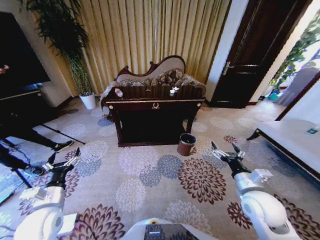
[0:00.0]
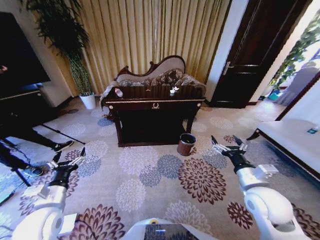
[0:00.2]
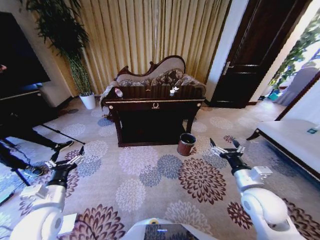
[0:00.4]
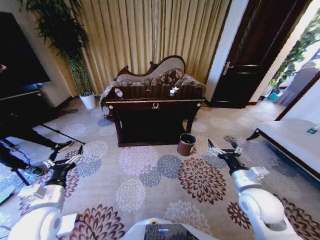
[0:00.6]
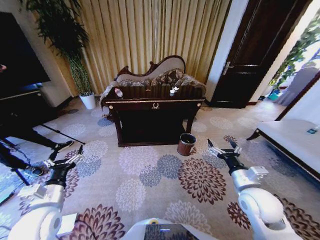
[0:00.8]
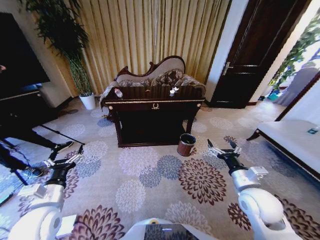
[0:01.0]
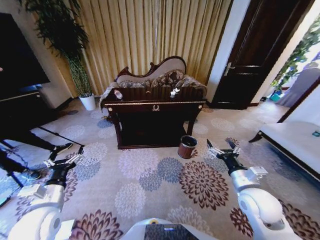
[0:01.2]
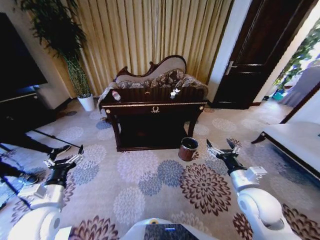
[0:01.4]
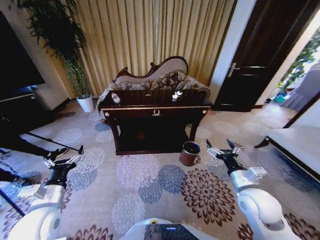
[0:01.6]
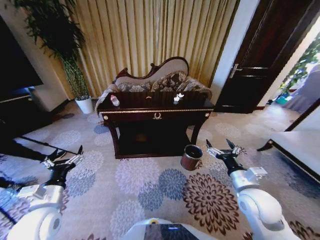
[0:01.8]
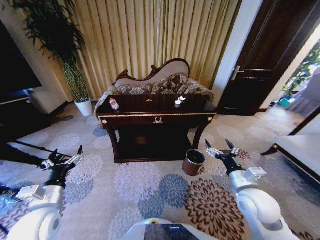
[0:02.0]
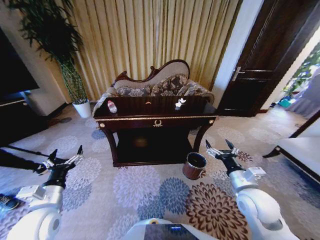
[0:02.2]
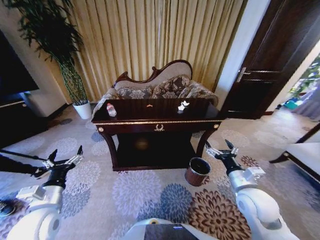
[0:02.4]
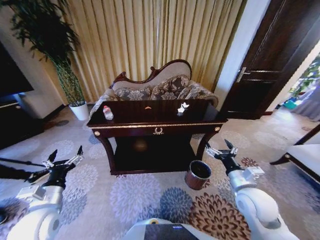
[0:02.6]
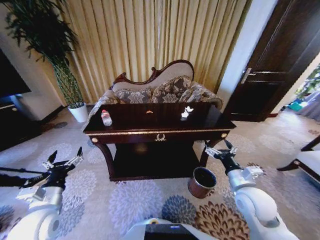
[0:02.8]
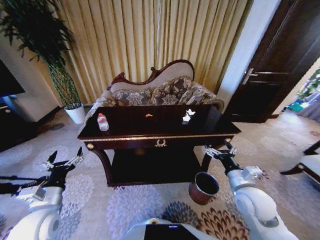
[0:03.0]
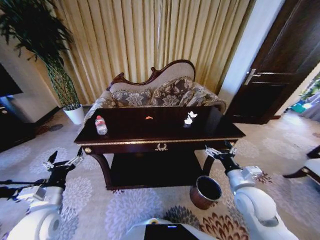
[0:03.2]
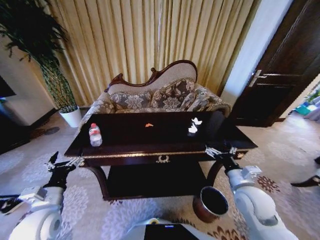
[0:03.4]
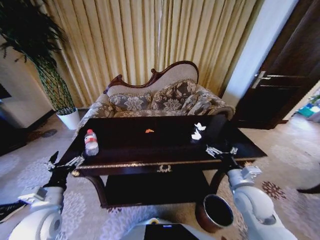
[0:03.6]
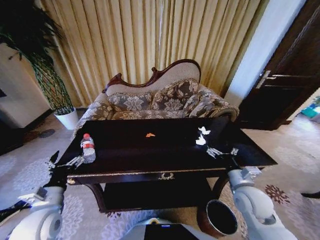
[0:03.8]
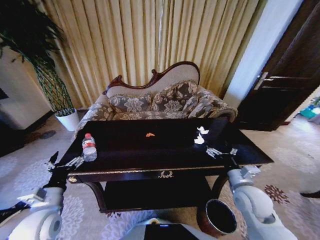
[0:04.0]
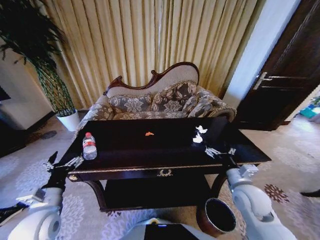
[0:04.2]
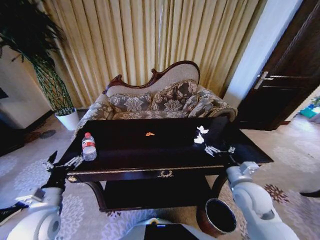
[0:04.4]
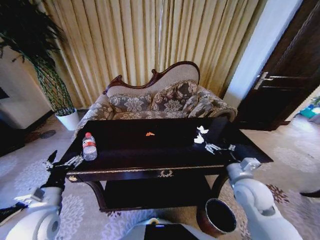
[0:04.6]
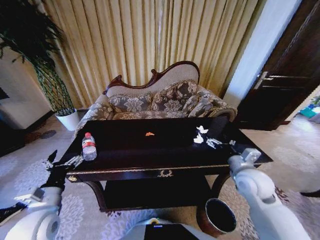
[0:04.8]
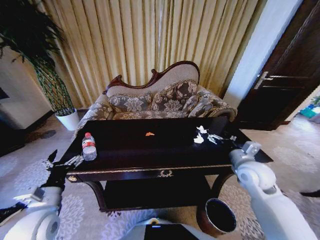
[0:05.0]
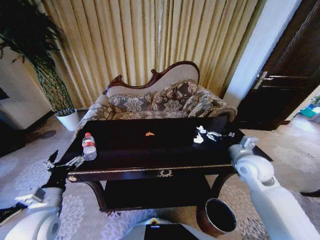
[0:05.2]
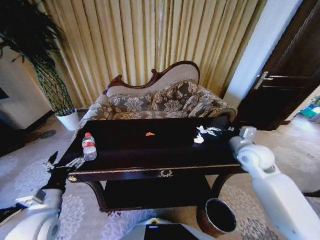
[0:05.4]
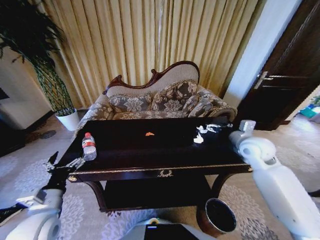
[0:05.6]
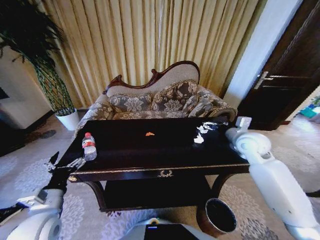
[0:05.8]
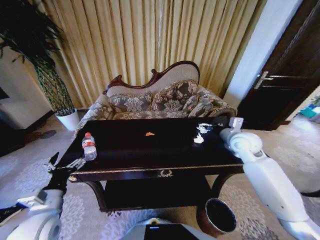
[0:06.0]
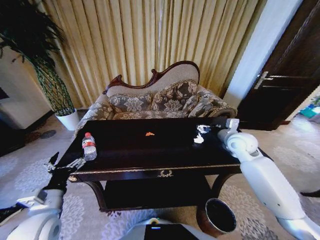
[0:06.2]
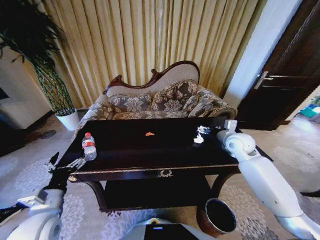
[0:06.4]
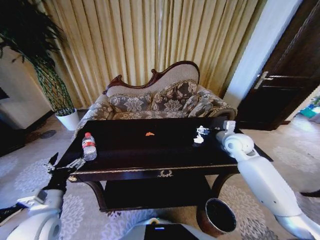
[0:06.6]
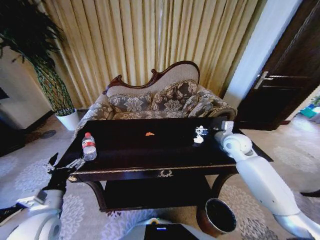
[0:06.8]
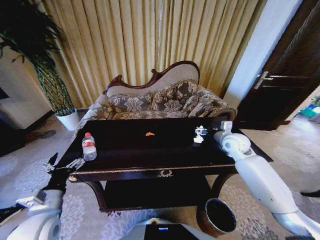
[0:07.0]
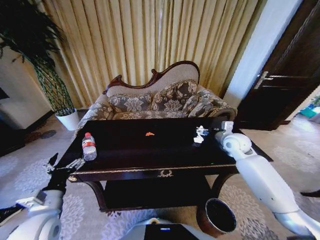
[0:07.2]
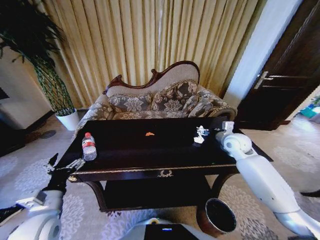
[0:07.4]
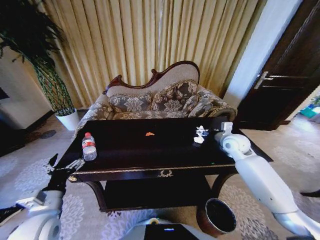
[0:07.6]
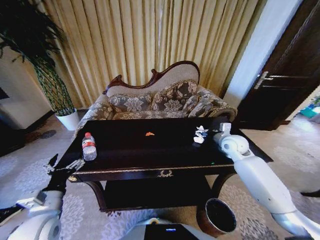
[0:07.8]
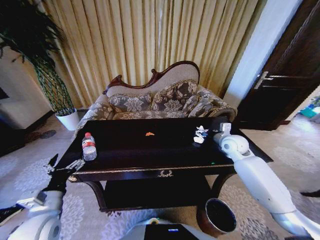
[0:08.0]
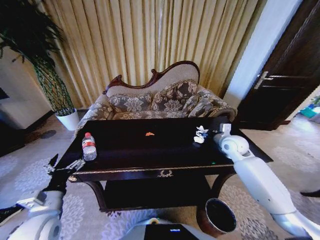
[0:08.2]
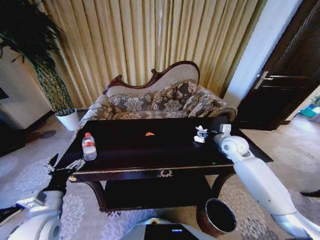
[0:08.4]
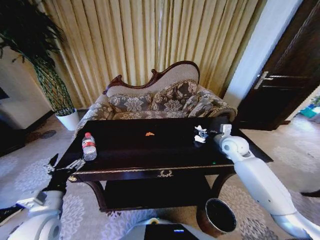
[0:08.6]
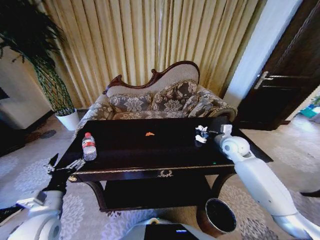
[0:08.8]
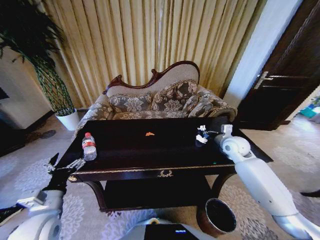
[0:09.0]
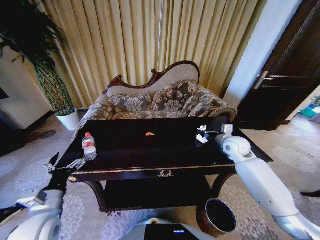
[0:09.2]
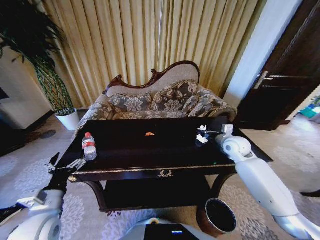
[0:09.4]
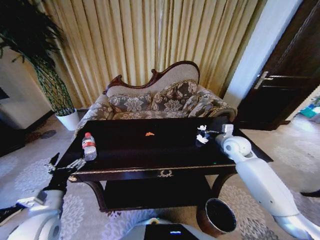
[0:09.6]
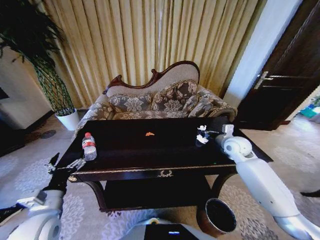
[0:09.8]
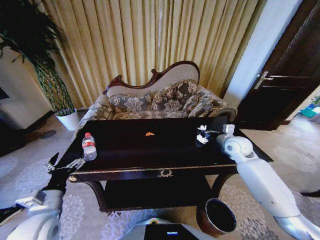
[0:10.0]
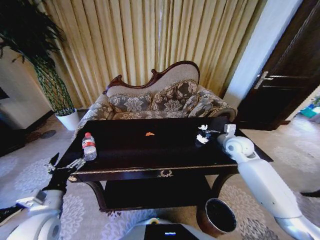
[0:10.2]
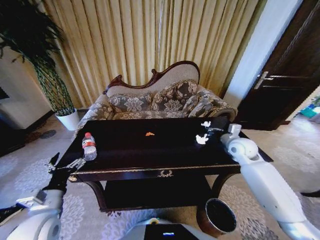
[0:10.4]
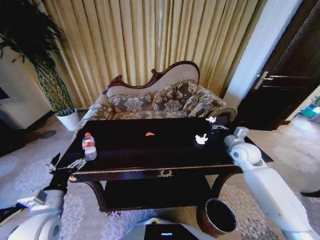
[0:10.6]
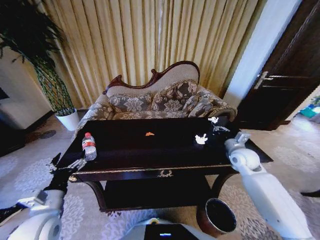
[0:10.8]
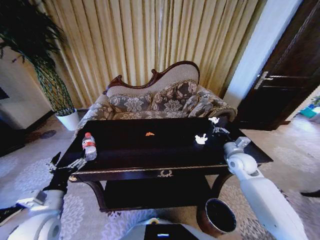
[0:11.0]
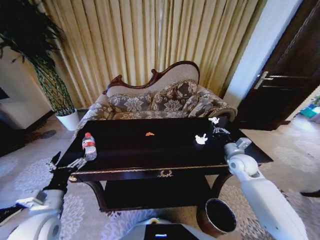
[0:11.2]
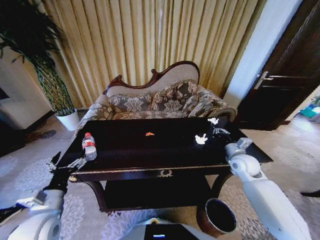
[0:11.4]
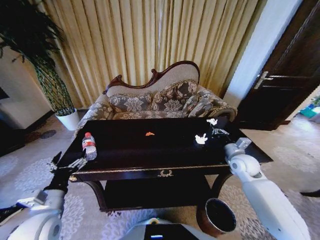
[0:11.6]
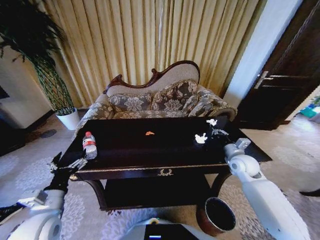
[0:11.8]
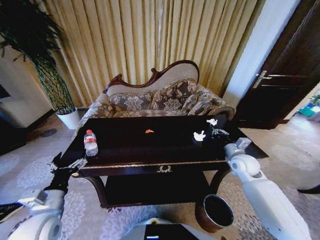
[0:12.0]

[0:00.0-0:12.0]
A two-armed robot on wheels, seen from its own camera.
Task of the whole recording: Move to the front of the table and place the trash on the table into the trash bin.
0:04.4 to 0:06.0: The right gripper goes about 20 cm forward and upward.
0:06.0 to 0:07.6: The grippers stay close to where they were, moving slightly.
0:07.6 to 0:09.0: The right gripper closes its fingers.
0:09.0 to 0:10.4: There are only small adjustments of the grippers.
0:10.4 to 0:12.0: The right gripper is displaced backward and downward by about 10 cm.

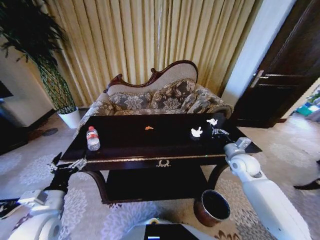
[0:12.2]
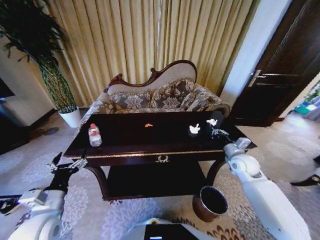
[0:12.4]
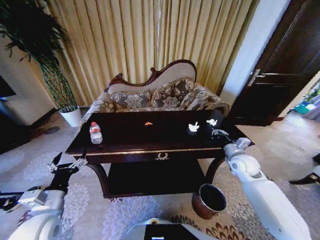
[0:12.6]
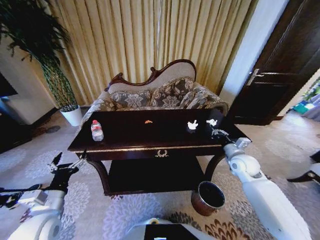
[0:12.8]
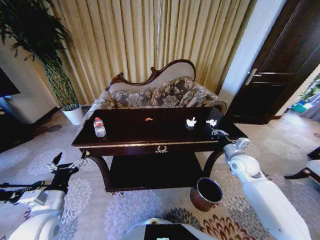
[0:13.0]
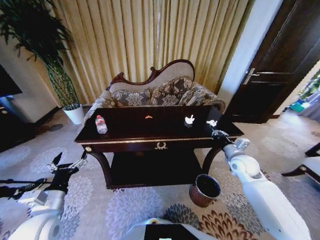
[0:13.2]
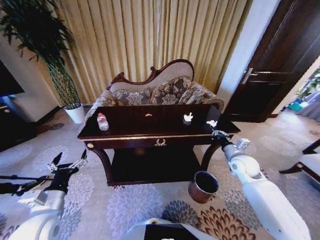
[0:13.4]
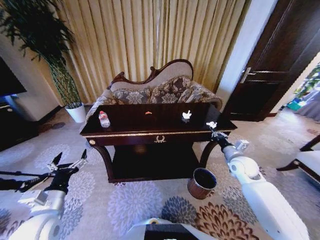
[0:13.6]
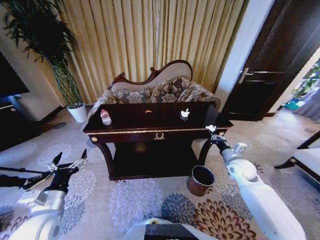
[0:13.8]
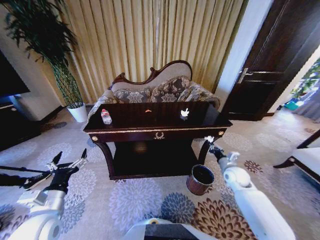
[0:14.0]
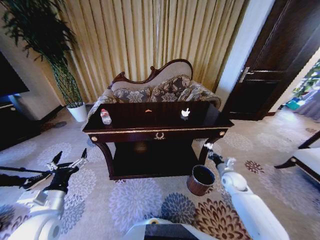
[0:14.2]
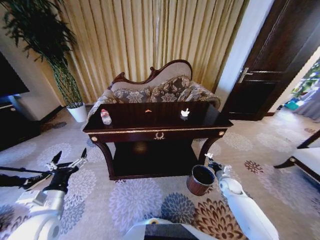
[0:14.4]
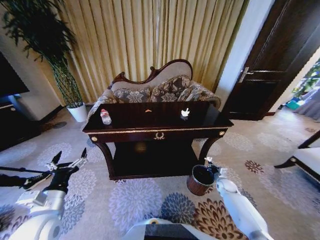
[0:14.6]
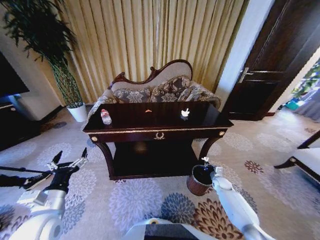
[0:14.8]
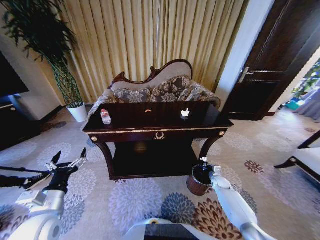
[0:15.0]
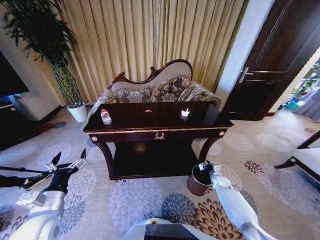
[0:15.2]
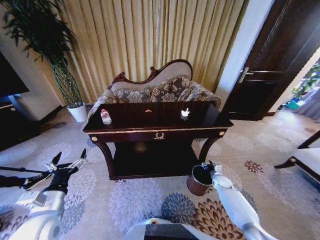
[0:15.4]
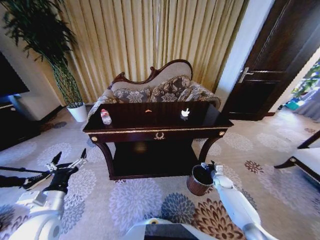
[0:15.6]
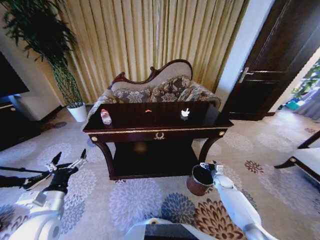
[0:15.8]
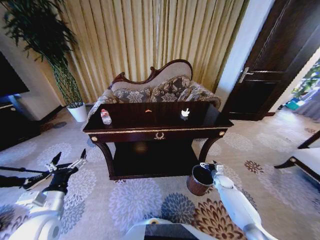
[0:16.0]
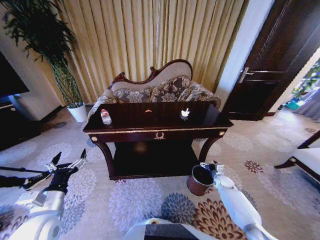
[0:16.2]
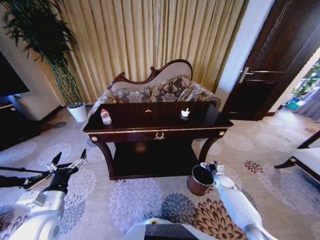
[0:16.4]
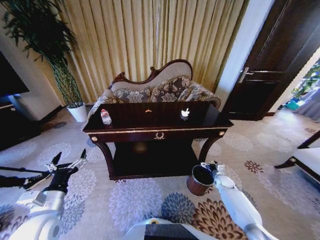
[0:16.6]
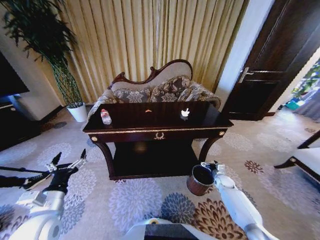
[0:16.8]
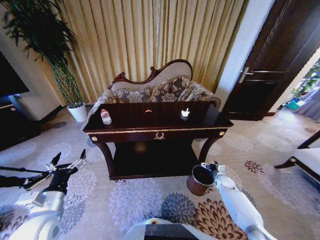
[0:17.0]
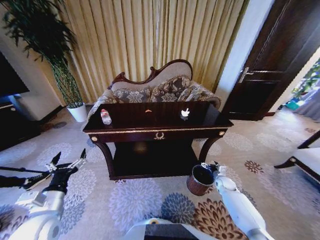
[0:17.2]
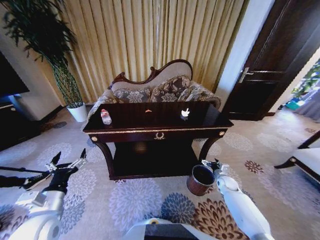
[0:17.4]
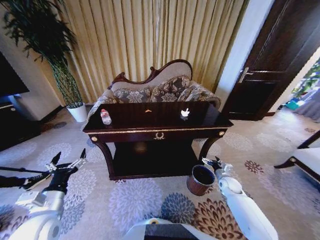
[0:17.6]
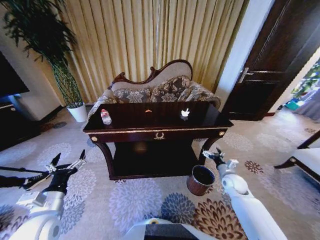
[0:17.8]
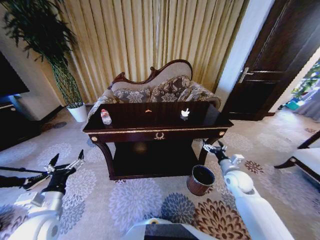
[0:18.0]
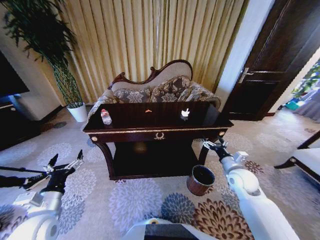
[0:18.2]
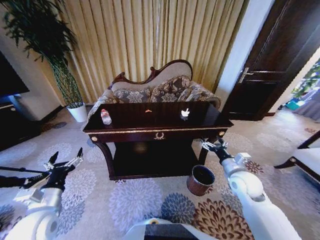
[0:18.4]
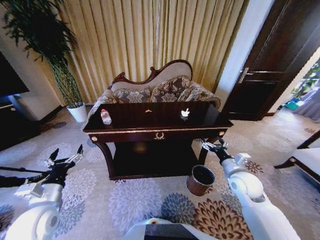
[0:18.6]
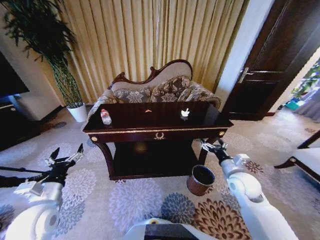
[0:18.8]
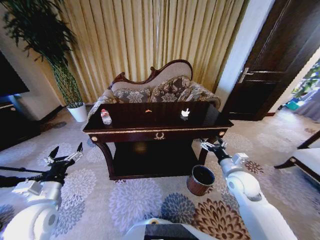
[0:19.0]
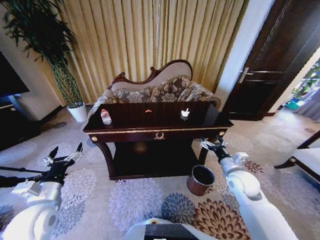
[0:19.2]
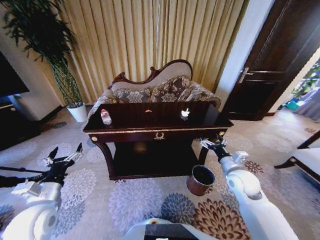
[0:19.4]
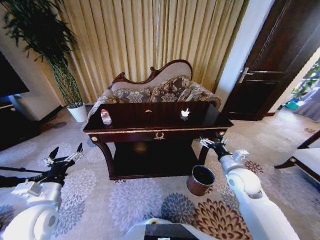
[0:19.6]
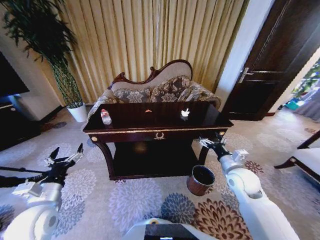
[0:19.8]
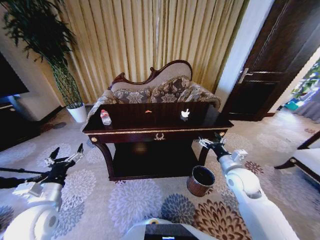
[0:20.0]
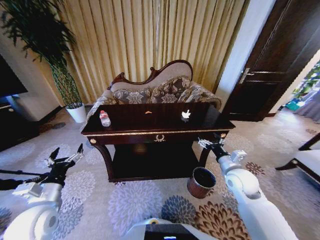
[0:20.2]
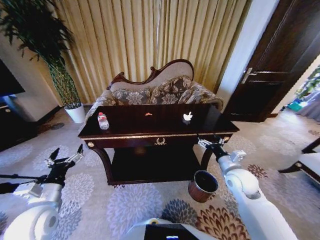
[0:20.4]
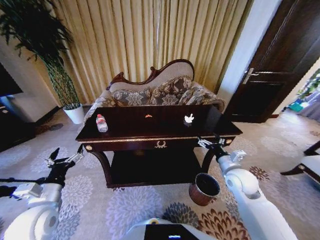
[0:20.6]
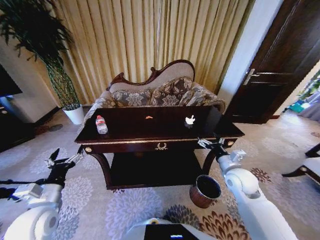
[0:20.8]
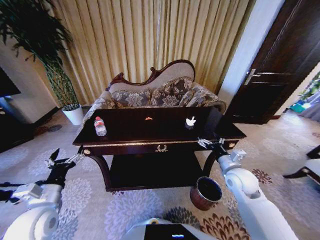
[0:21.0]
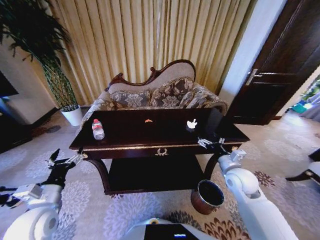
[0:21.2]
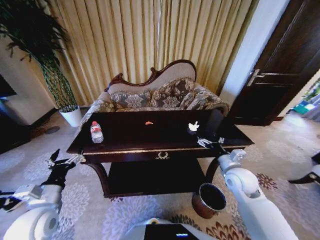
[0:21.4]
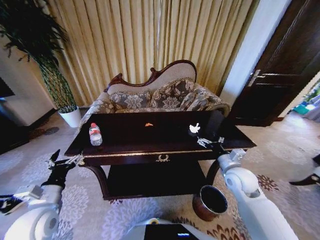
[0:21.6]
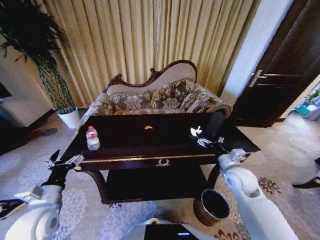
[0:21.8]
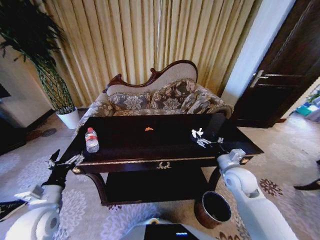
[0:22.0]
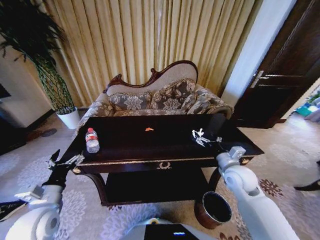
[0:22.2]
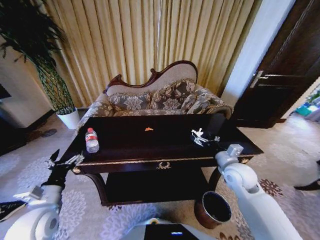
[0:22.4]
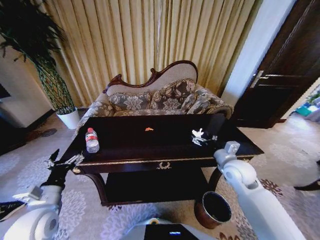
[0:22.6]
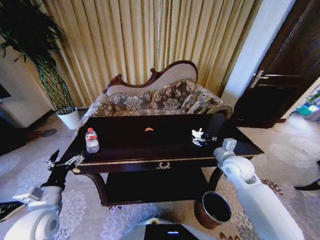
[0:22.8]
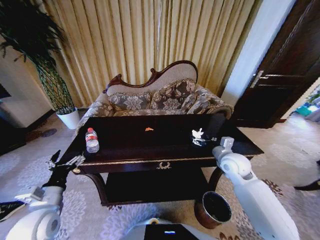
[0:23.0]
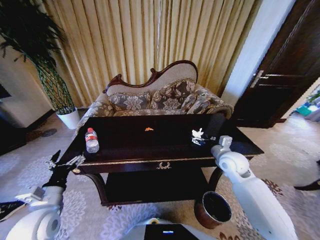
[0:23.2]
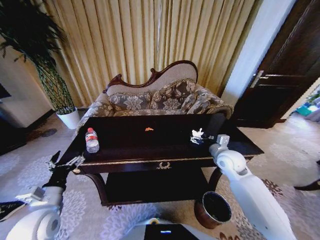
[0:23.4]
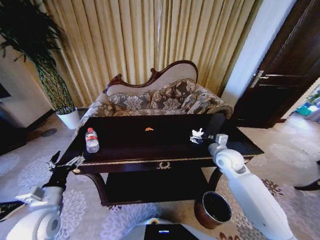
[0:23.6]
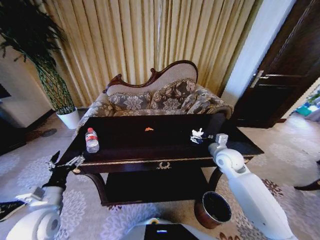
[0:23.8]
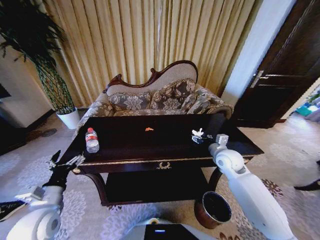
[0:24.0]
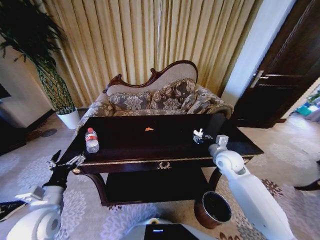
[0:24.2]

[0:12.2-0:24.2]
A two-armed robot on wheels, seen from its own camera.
Task of the whole recording: Move to the front of the table and place the trash on the table into the trash bin.
0:13.8 to 0:15.2: The right gripper shifts some 25 cm downward.
0:15.2 to 0:16.6: The right gripper opens up.
0:16.6 to 0:18.2: The right gripper is displaced upward by roughly 25 cm.
0:18.2 to 0:19.8: There are only small adjustments of the grippers.
0:22.6 to 0:24.2: The right gripper travels forward by some 5 cm, and closes its fingers.
